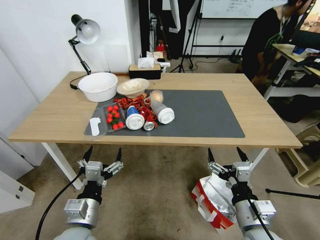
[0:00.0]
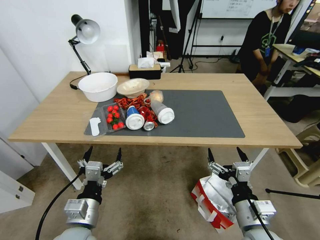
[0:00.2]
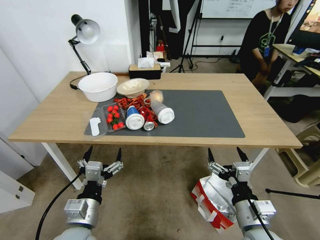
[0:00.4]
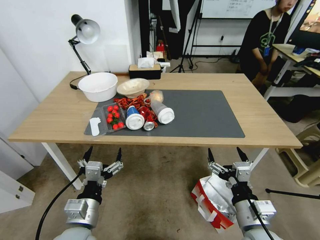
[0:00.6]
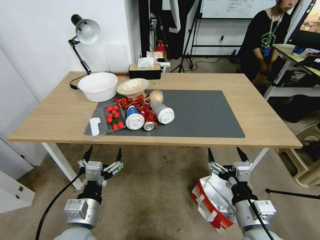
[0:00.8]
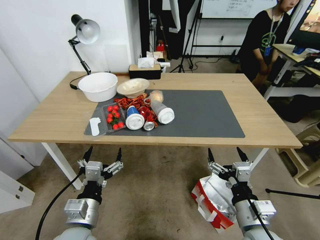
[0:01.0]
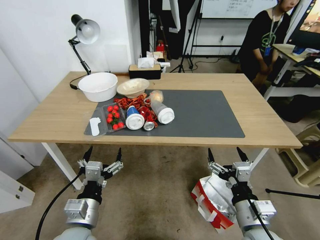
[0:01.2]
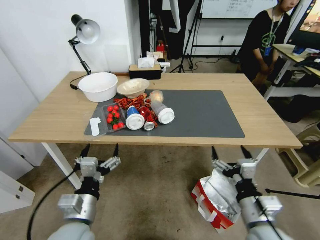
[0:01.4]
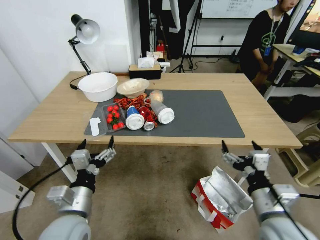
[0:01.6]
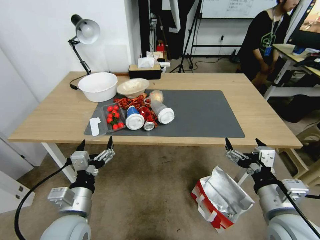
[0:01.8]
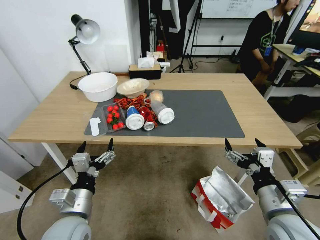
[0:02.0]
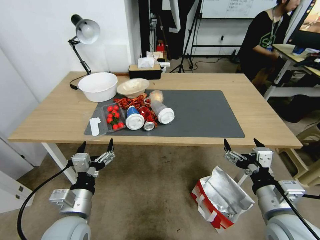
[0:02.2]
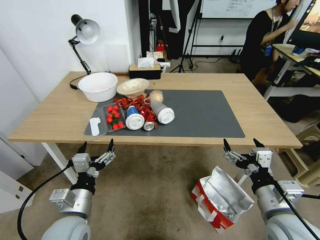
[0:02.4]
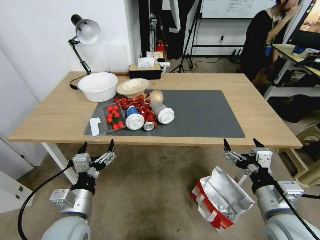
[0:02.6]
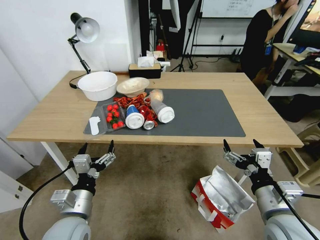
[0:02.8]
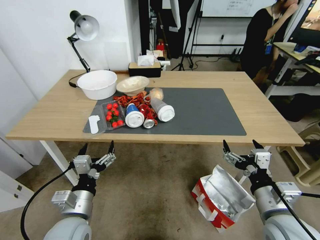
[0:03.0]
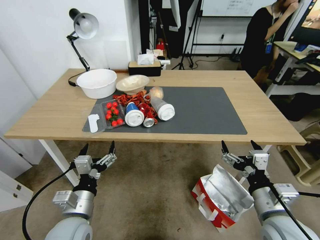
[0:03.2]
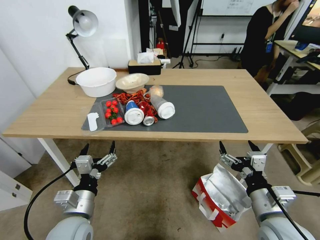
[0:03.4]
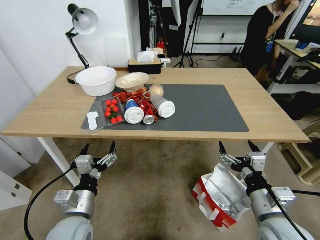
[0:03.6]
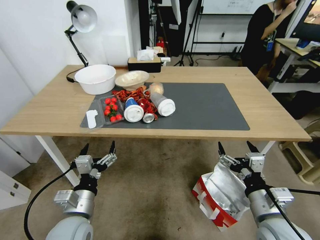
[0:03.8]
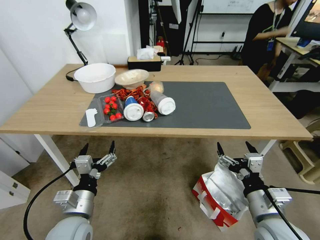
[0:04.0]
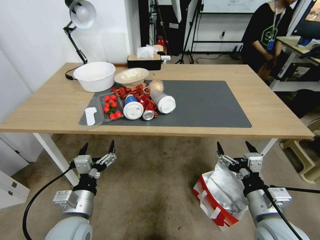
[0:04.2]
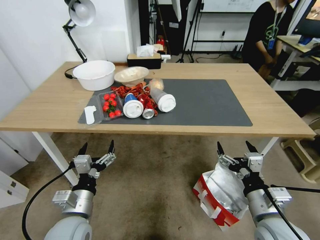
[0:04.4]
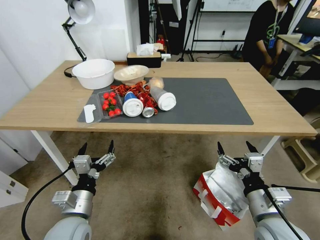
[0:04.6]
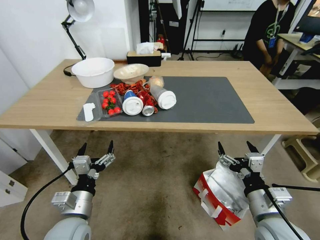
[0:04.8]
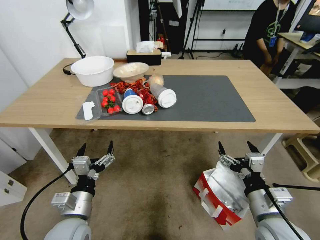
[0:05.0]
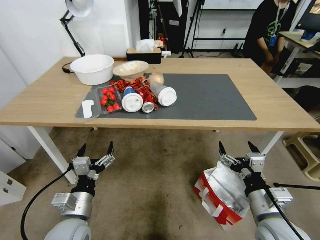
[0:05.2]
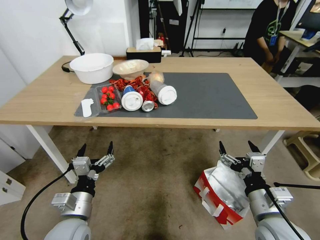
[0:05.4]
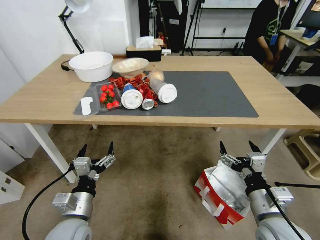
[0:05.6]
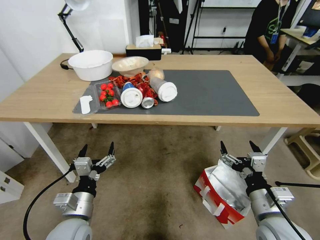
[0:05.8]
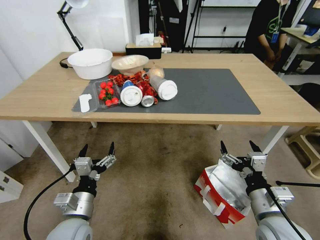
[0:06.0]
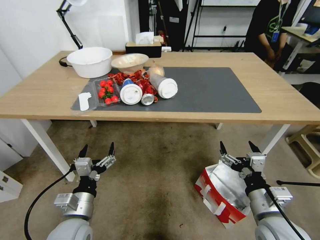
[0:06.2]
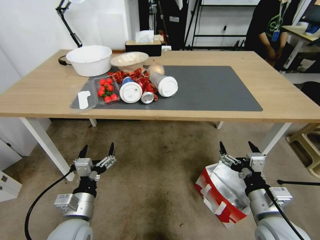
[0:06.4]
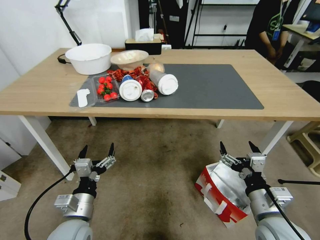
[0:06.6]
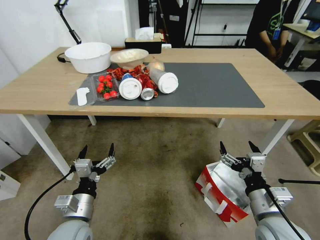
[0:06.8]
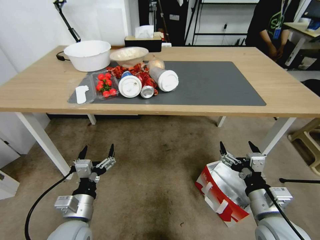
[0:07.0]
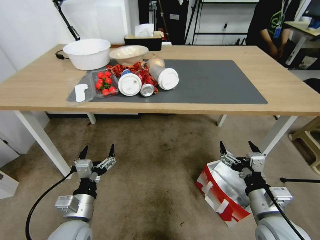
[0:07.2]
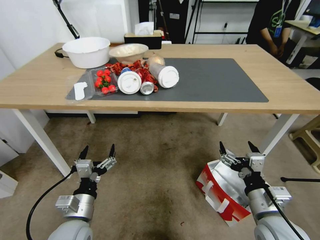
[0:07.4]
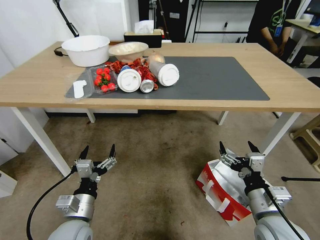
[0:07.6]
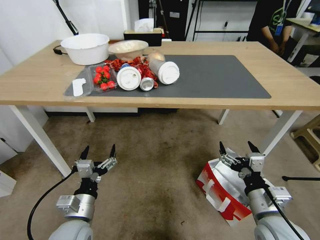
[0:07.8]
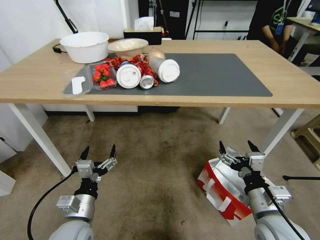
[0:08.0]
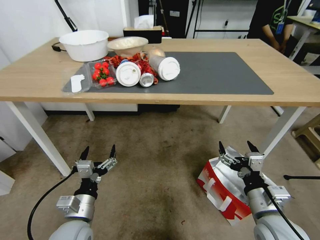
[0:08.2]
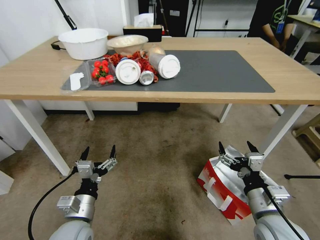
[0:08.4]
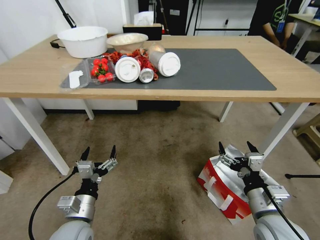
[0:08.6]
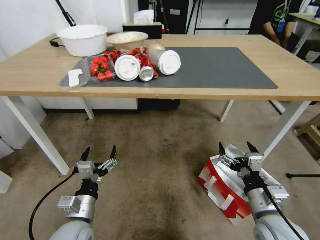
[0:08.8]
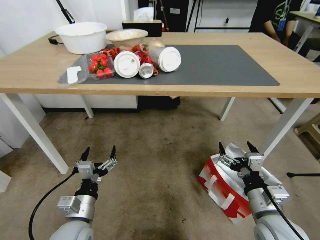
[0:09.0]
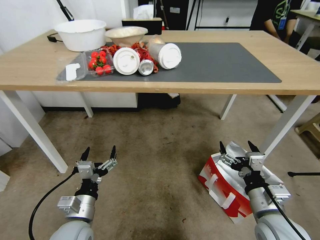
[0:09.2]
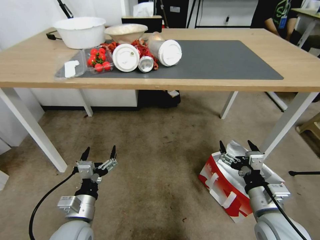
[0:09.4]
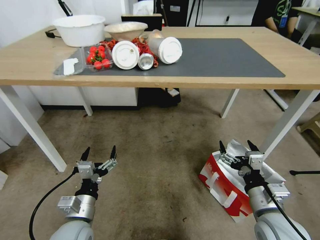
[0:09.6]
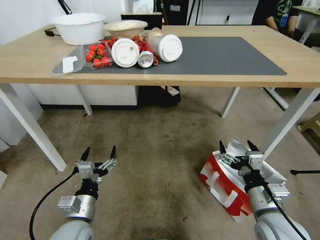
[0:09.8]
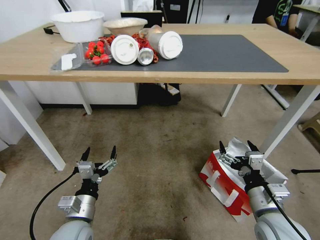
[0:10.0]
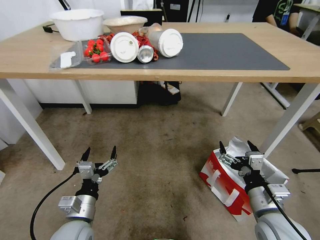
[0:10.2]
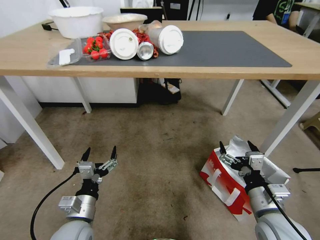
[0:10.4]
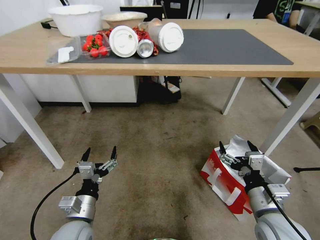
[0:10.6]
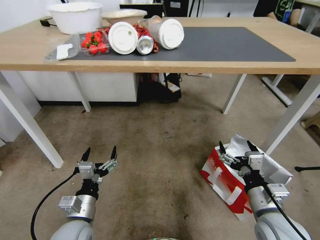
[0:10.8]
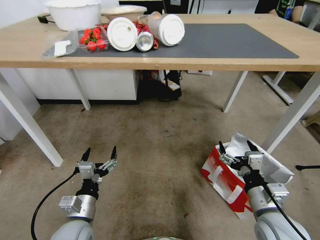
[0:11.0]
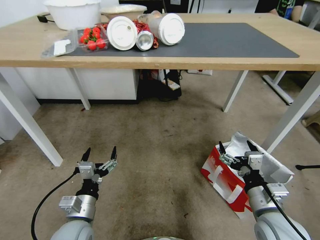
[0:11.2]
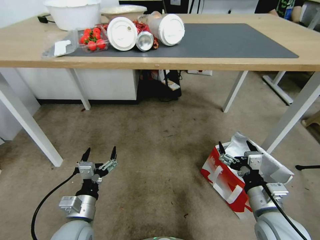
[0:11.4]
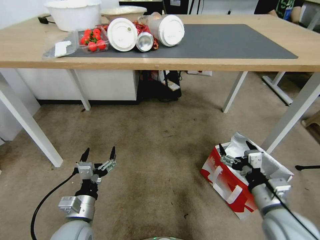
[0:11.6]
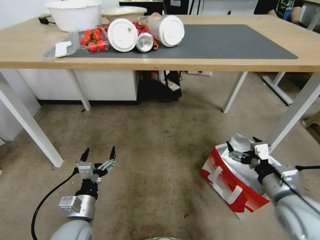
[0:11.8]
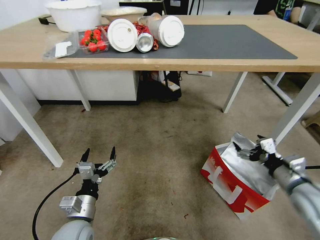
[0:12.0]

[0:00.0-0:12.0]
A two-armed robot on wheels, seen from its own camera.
Task of the whole recording: Pick up the food delivery bag from the floor and place it on the table.
0:01.6 to 0:03.0: There are only small adjustments of the grippers.
0:10.4 to 0:12.0: The right gripper shifts roughly 15 cm to the right and forward.

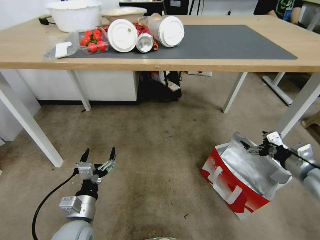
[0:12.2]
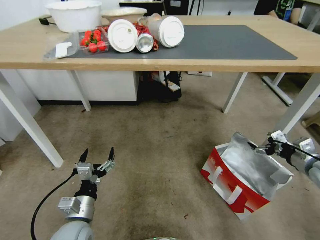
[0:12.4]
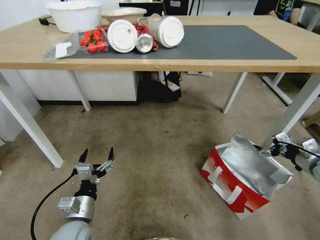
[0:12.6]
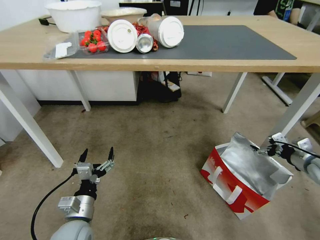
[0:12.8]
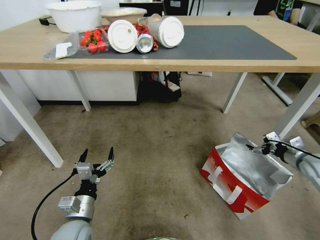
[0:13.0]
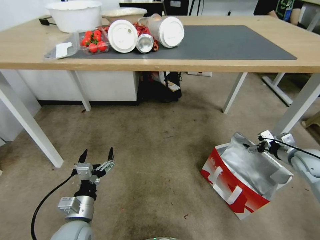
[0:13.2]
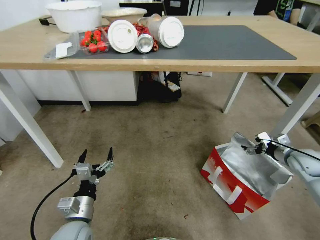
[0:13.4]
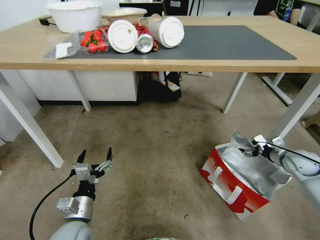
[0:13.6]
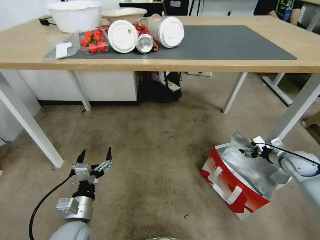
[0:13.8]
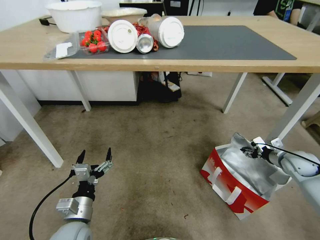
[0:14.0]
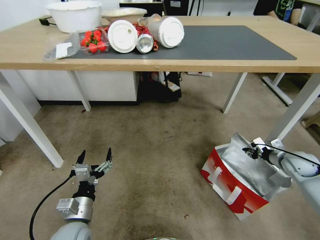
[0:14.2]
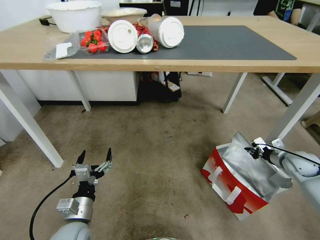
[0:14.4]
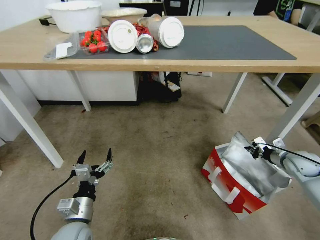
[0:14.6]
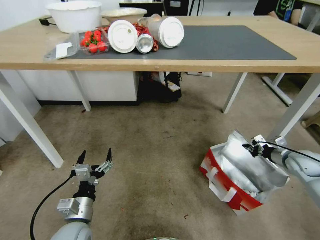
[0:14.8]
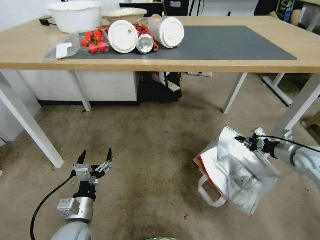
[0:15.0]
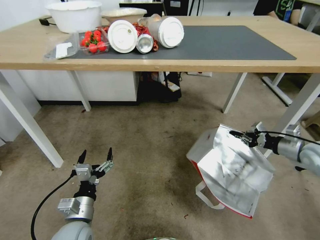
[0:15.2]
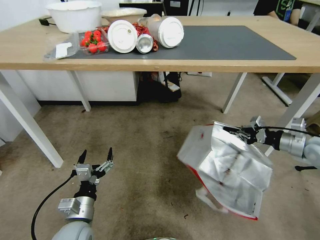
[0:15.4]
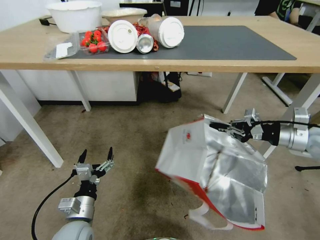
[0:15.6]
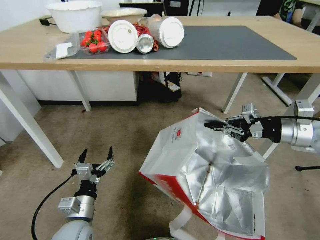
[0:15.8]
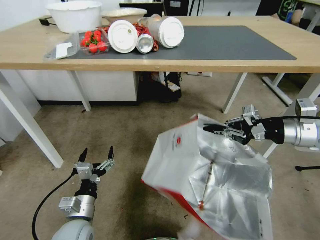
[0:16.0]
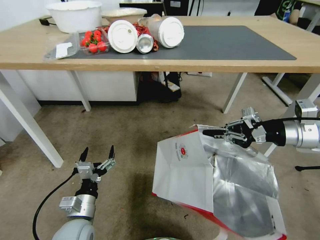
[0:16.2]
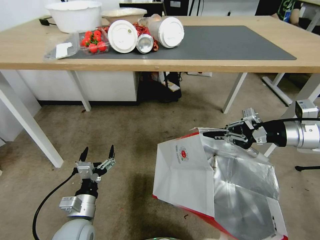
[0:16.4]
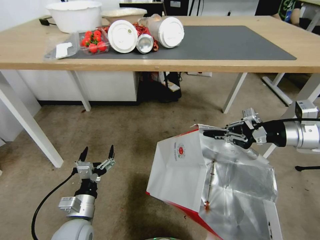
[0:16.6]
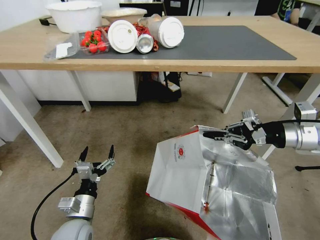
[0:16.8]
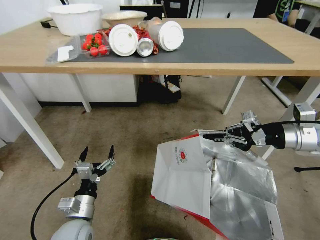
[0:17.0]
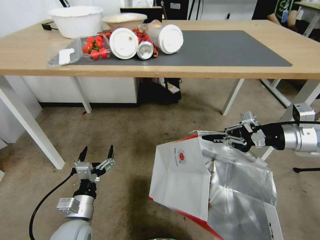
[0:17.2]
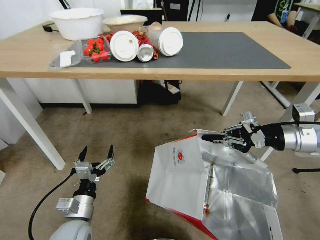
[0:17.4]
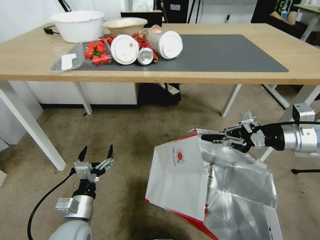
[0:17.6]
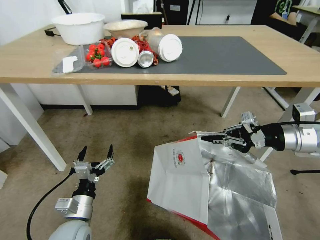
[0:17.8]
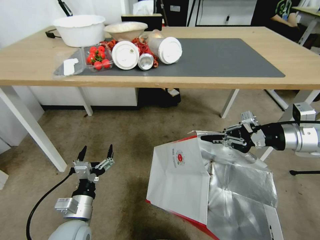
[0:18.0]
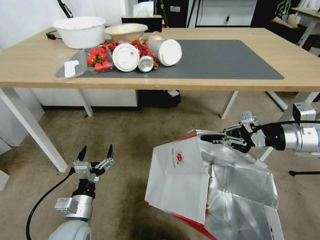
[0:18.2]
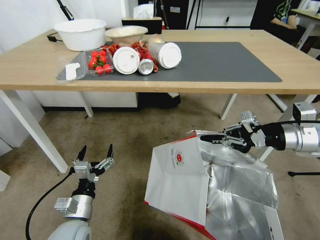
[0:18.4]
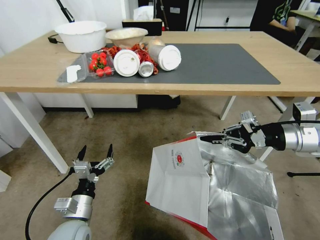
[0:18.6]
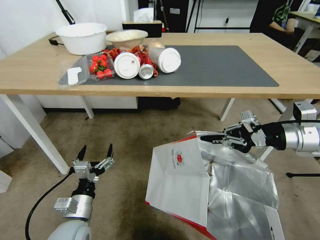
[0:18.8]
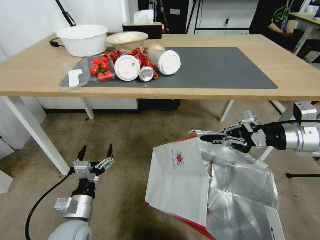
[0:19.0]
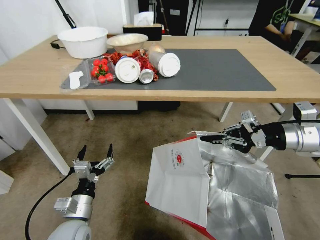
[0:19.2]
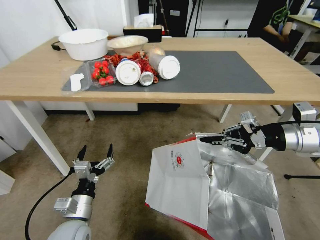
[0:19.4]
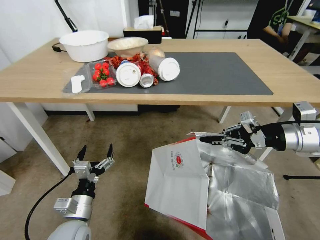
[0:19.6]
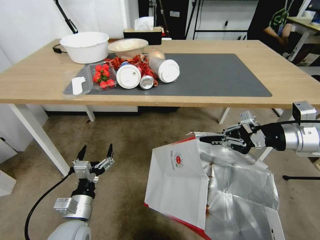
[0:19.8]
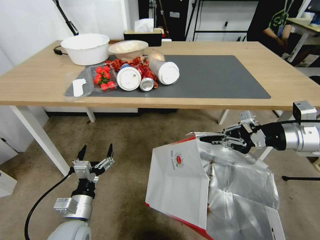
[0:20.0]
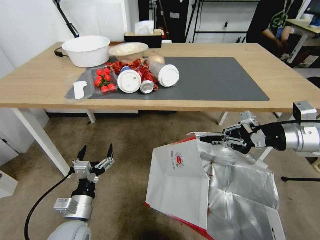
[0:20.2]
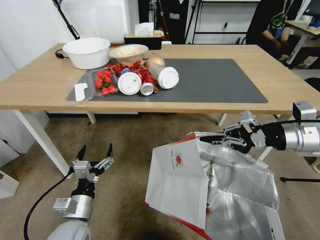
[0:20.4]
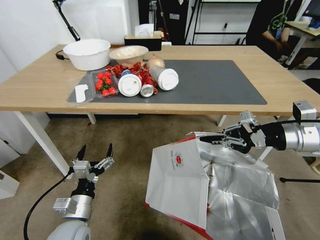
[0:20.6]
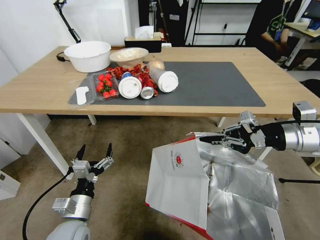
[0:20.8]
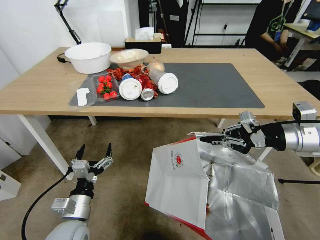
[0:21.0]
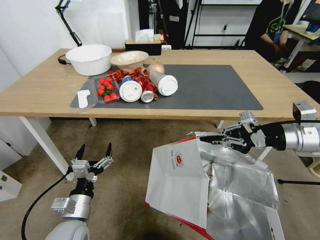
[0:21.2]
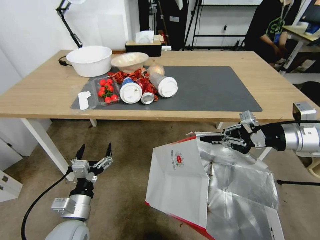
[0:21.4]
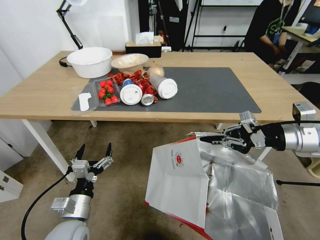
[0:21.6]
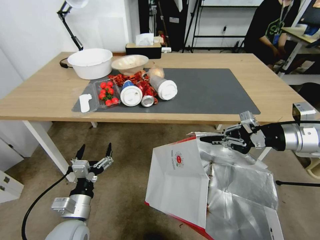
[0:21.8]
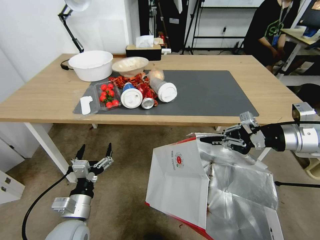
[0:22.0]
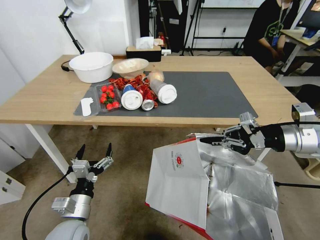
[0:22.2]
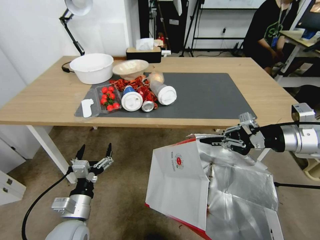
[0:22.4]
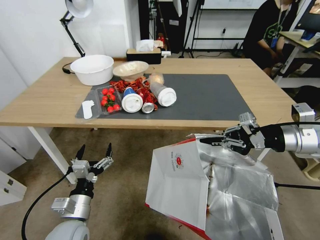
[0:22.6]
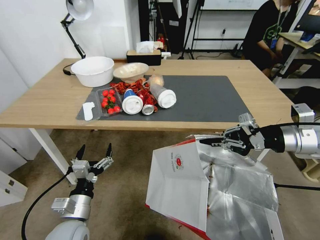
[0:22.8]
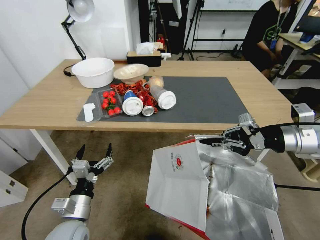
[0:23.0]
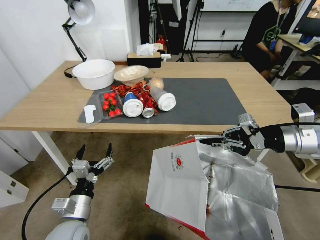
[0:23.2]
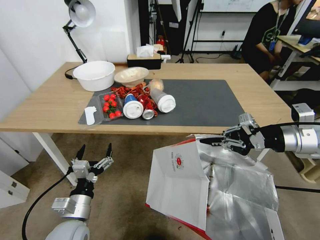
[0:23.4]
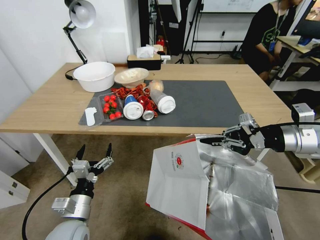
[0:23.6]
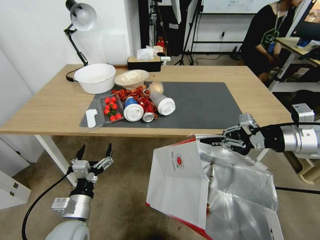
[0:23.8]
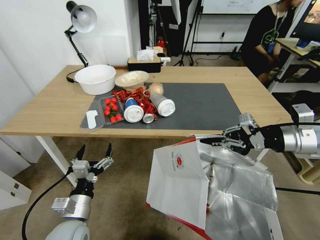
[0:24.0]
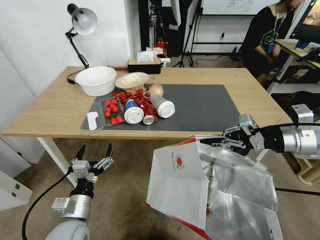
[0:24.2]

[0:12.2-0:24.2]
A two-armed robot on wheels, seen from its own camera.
Task of the whole recording: Pick up the food delivery bag from the floor and place it on the table.
0:12.2 to 0:13.8: The right gripper goes roughly 15 cm forward, downward and to the right.
0:13.8 to 0:15.2: The right gripper moves upward, about 10 cm, and closes its fingers.
0:15.2 to 0:16.6: The right gripper heads upward and to the left, covering roughly 15 cm.
